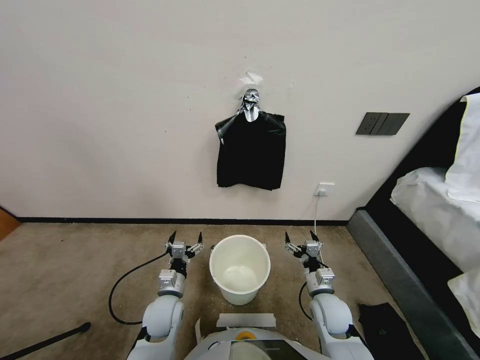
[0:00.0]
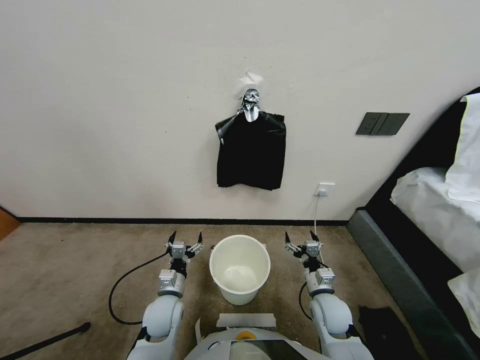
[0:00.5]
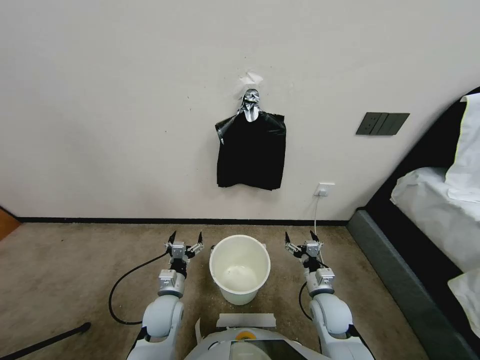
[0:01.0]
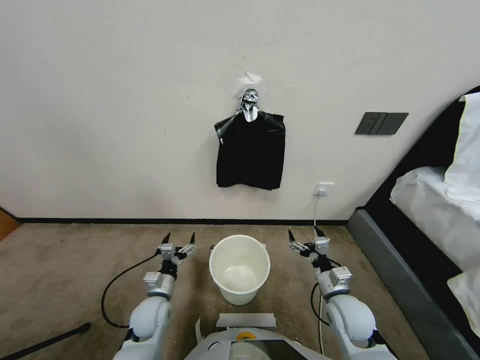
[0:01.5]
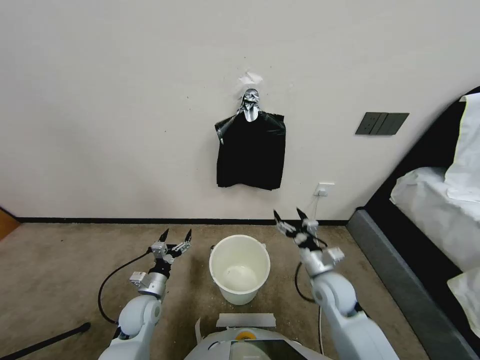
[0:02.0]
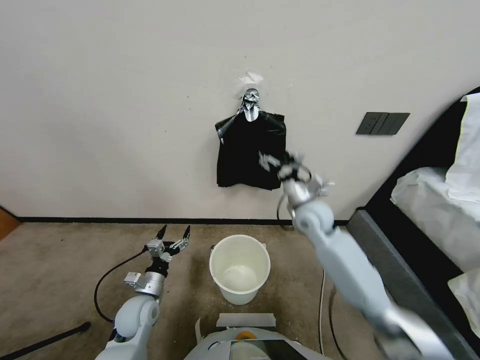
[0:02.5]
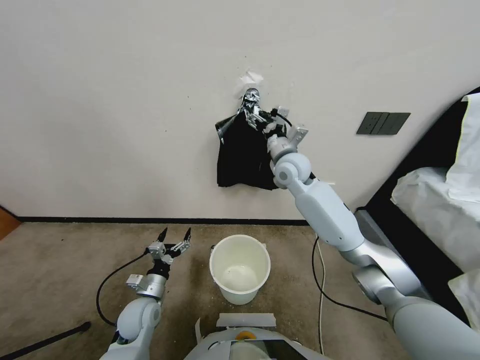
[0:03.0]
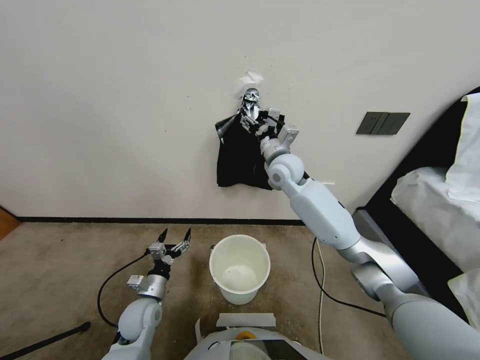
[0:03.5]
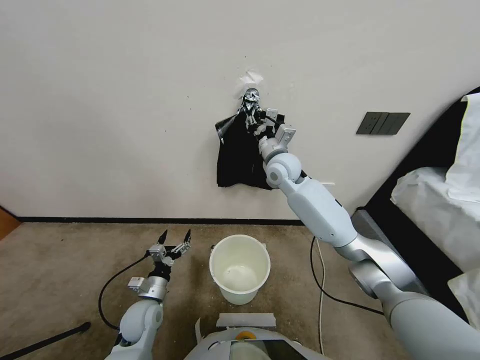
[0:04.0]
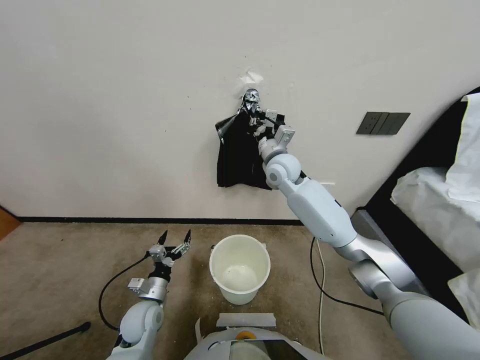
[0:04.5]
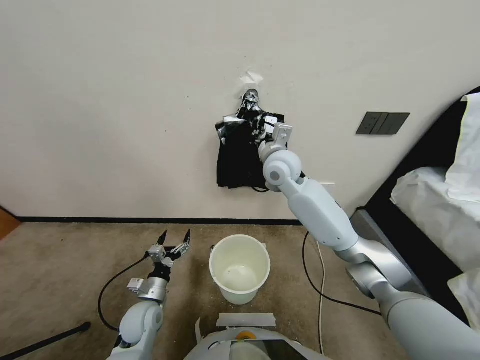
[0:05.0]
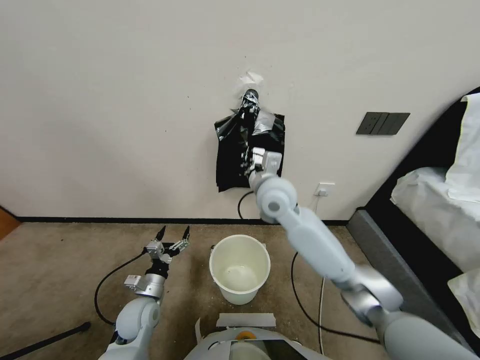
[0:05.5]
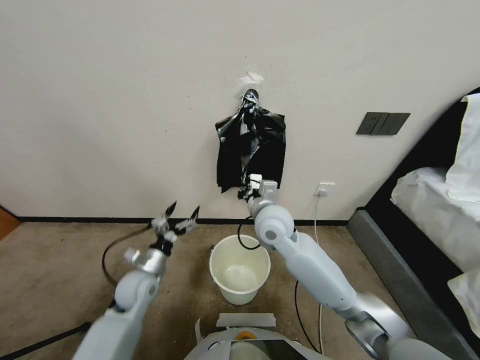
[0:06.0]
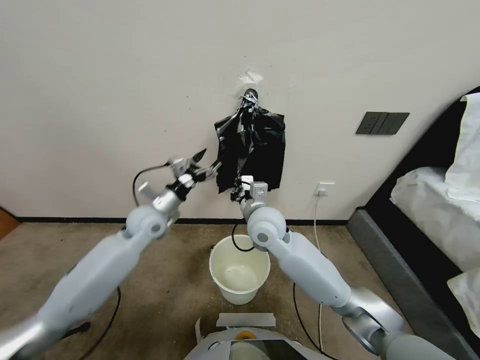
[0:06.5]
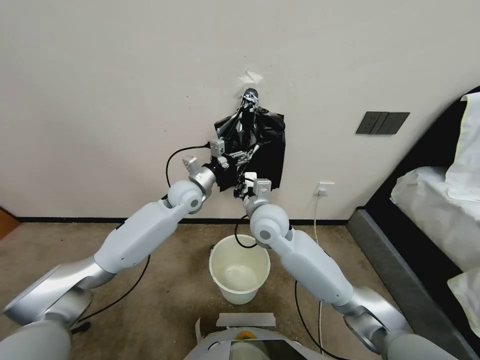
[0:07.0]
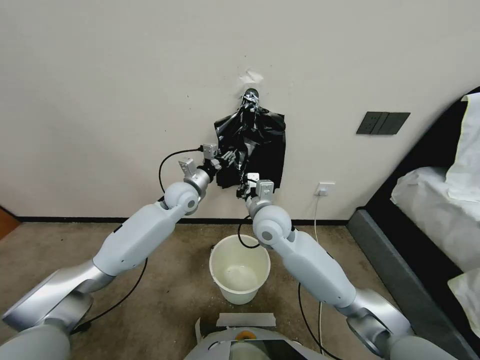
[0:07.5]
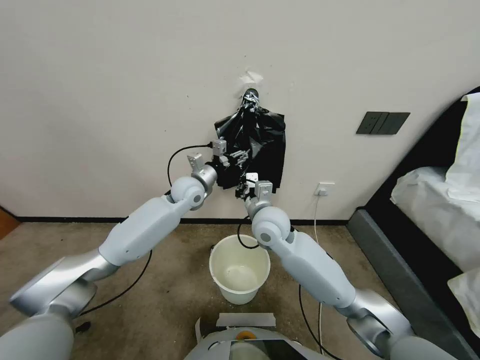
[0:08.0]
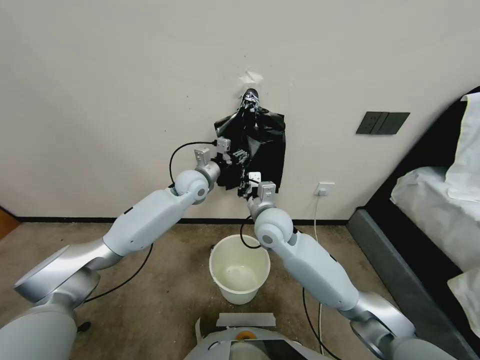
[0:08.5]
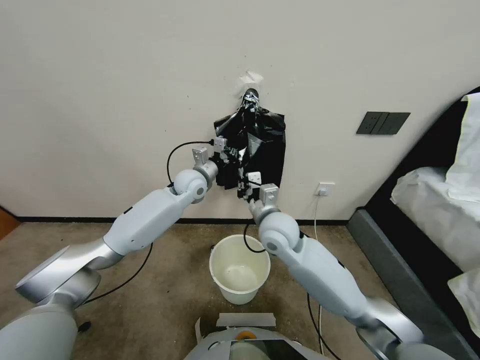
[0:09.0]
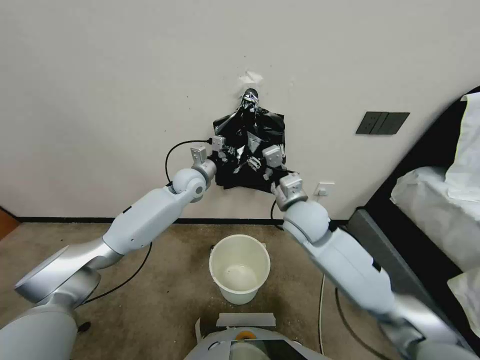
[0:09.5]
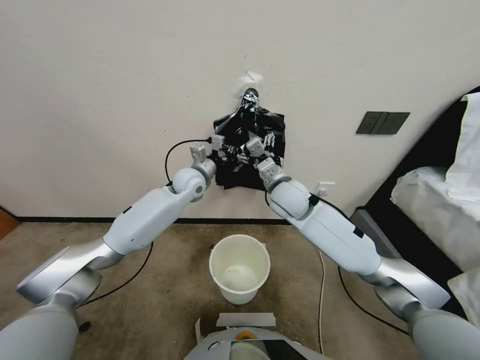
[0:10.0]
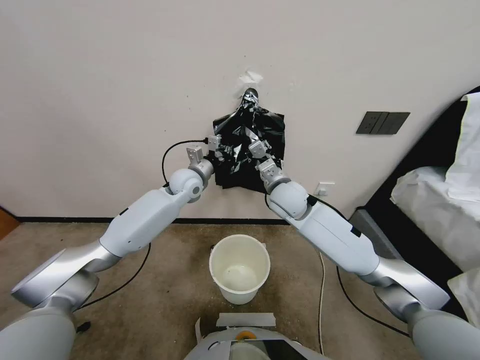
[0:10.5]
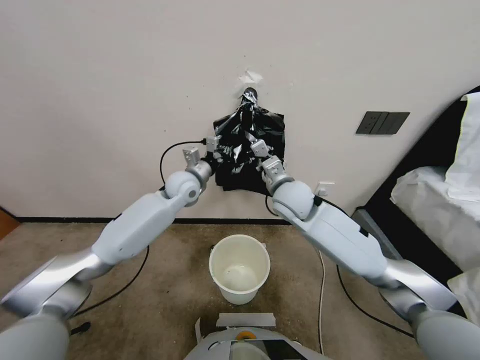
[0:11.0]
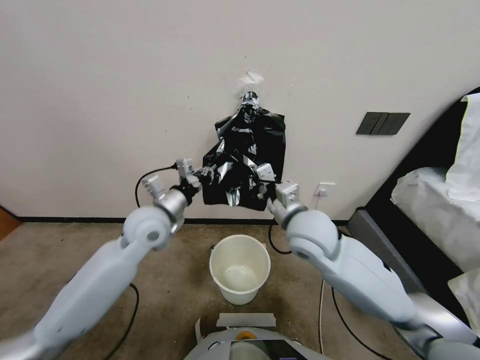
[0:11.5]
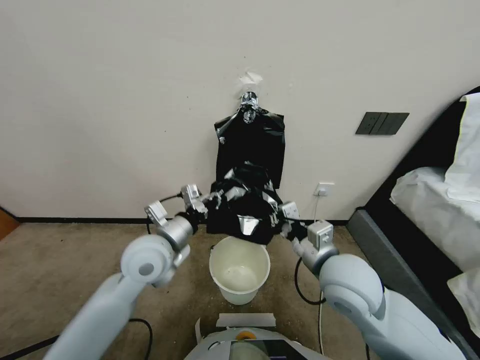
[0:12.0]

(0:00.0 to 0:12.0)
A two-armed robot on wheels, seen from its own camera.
Task of the whole recording: Place a trash bag onto the trash bin.
0:02.0 - 0:04.0: The right gripper is displaced forward, upward and to the left by some 35 cm, and closes up.
0:04.0 - 0:06.0: The right gripper heads backward and downward, covering approximately 15 cm. Meanwhile the left gripper shifts about 15 cm upward and forward.
0:06.0 - 0:08.0: The left gripper moves forward, to the right and upward, about 25 cm, and closes, then reopens.
0:08.0 - 0:10.0: The left gripper closes, while the right gripper moves forward, about 5 cm, and opens up.
0:10.0 - 0:12.0: The two grippers go approximately 20 cm backward. The right gripper closes up.

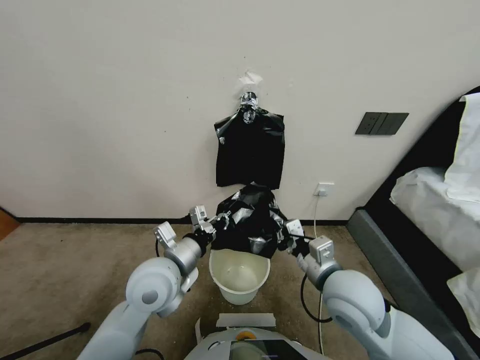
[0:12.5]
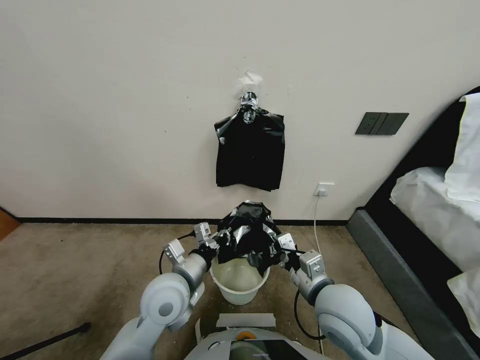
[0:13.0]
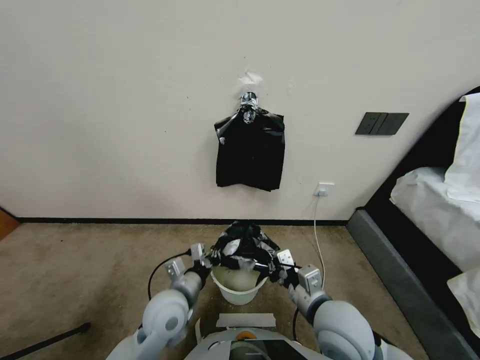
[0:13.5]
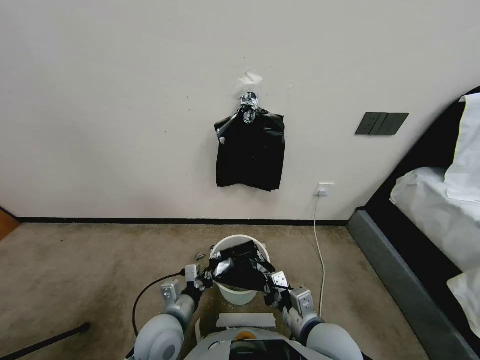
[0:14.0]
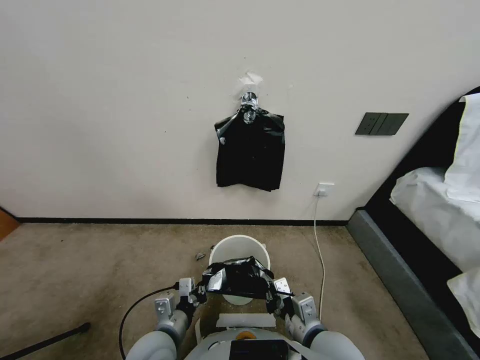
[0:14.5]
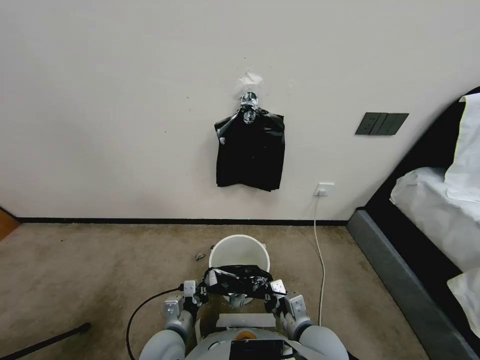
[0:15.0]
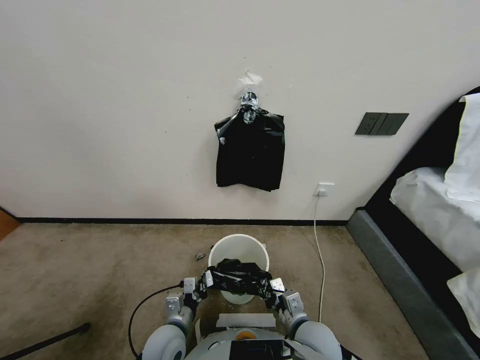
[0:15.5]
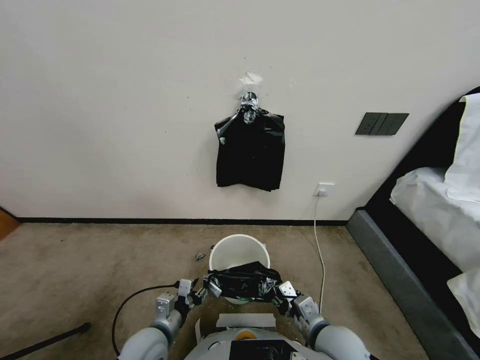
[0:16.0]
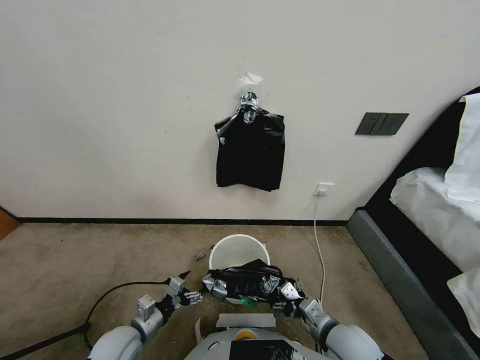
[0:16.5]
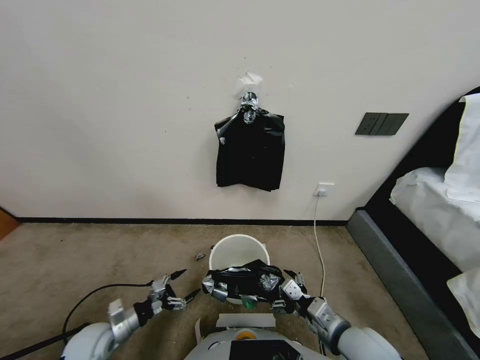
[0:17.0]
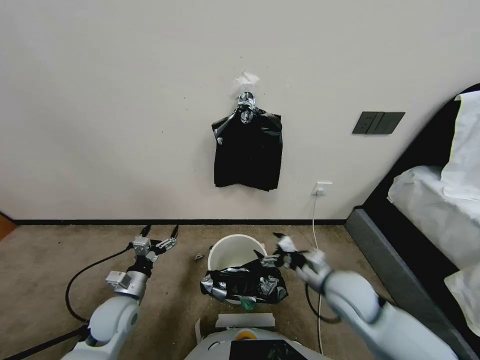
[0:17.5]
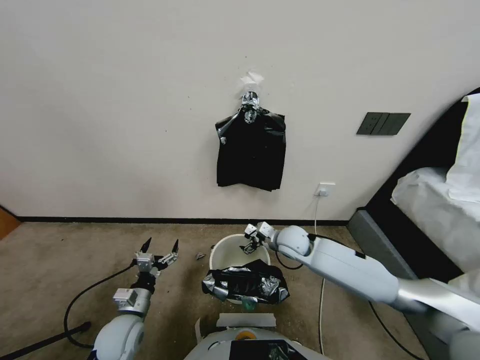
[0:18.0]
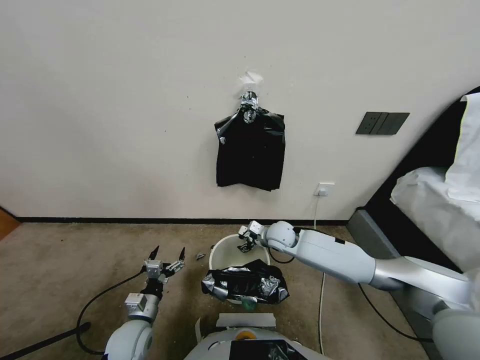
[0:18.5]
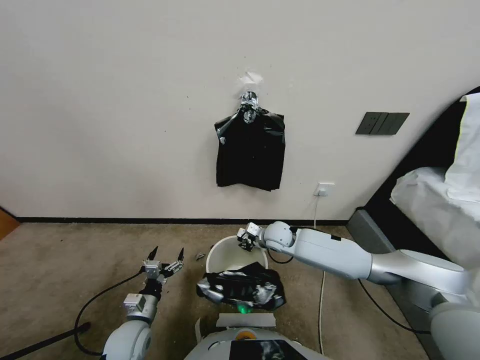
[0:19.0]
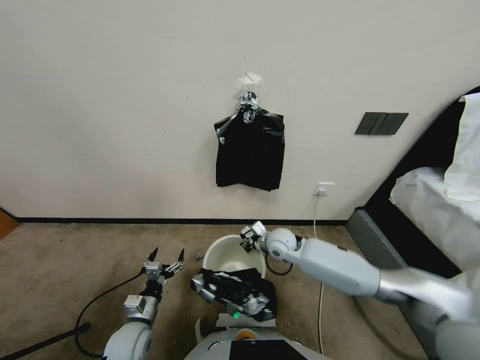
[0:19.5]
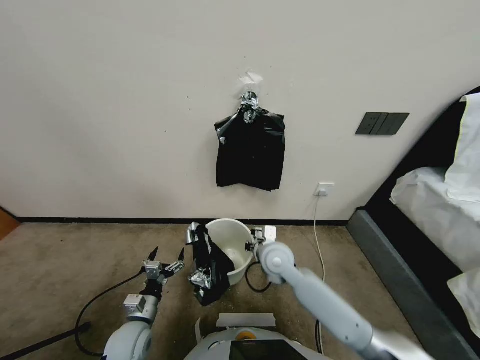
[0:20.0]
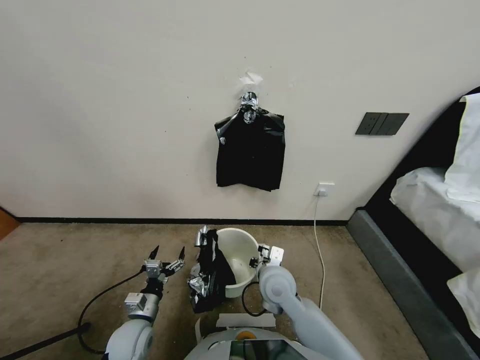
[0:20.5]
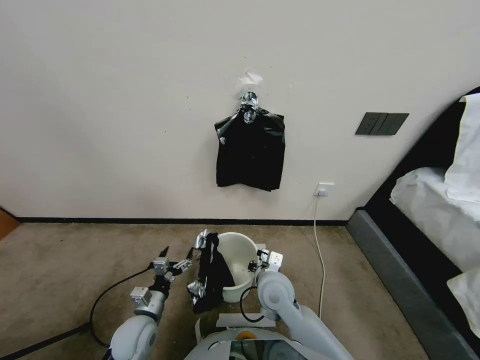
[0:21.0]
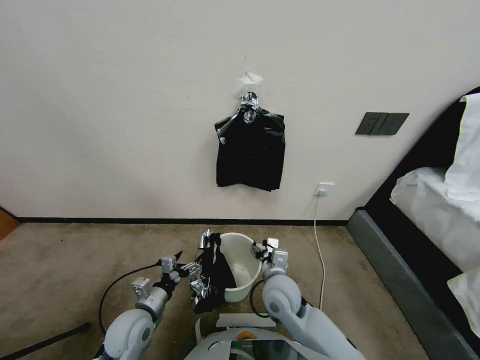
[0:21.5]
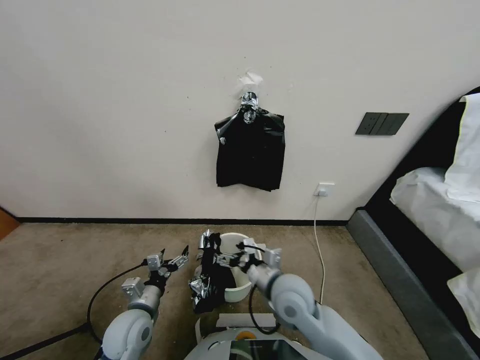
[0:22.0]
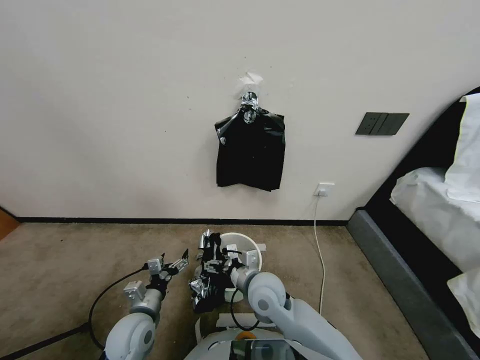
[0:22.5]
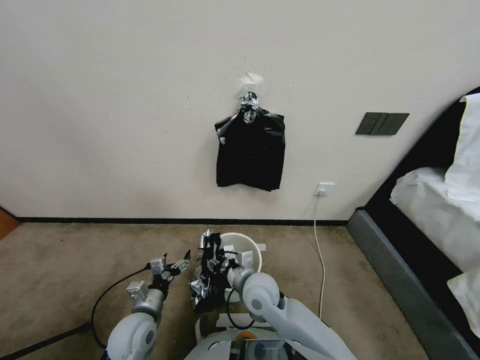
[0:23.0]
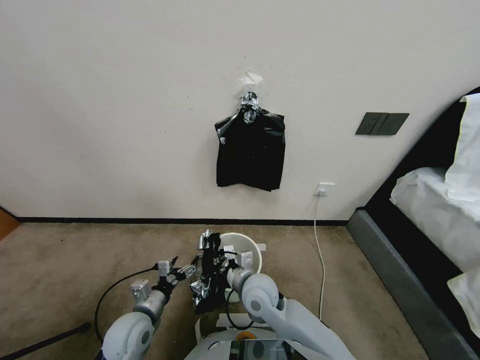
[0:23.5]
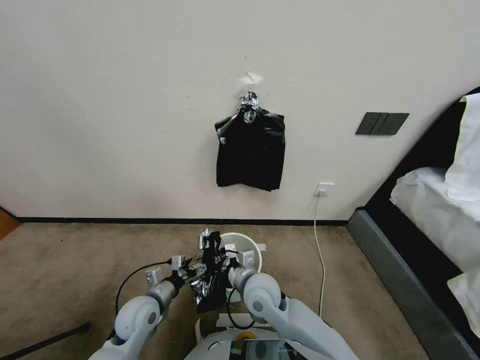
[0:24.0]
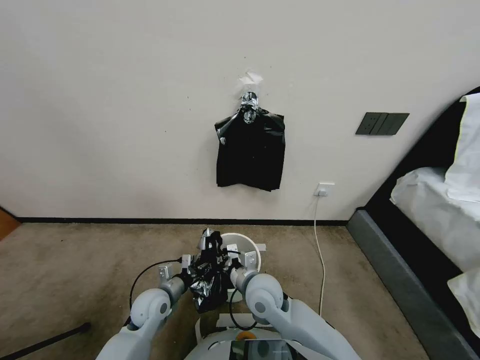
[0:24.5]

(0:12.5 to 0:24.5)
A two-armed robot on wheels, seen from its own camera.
Task of the whole recording: Place a trash bag onto the trash bin.
0:12.5 - 0:14.5: The right gripper heads backward and downward, covering roughly 10 cm; the left gripper moves downward and backward, about 15 cm.
0:14.5 - 0:16.5: The left gripper moves to the left and downward, about 15 cm, and opens up, while the right gripper goes some 5 cm to the right, and opens up.
0:16.5 - 0:18.5: The right gripper travels forward by some 30 cm, and closes; the left gripper reaches some 10 cm to the left, then returns.
0:18.5 - 0:20.5: The right gripper is displaced backward by approximately 15 cm, and closes up.
0:20.5 - 0:22.5: The left gripper changes place by about 5 cm. The right gripper opens its fingers.
0:22.5 - 0:24.5: The left gripper is displaced forward by roughly 5 cm, and closes. The right gripper closes its fingers.

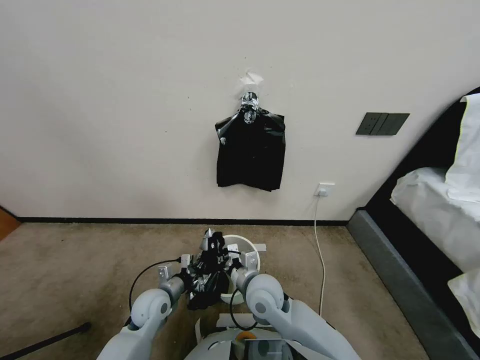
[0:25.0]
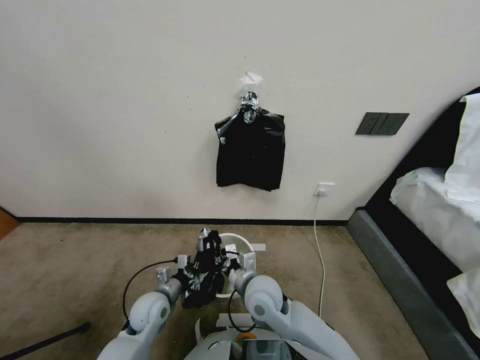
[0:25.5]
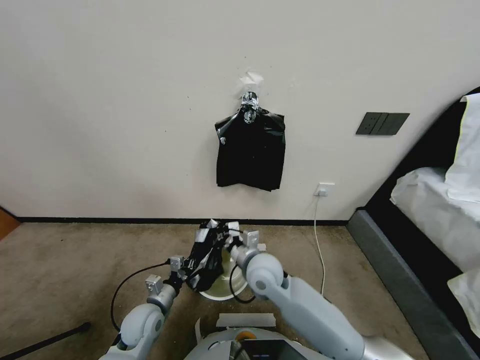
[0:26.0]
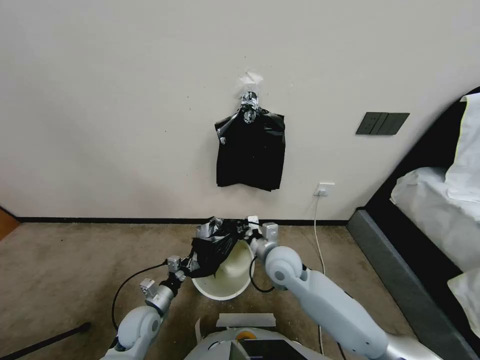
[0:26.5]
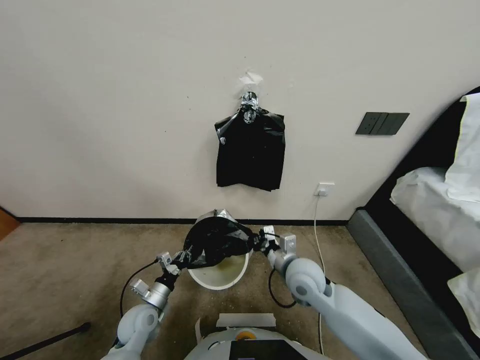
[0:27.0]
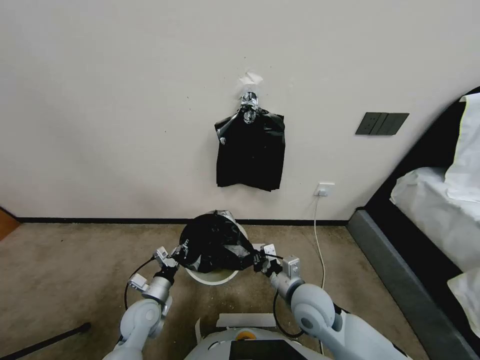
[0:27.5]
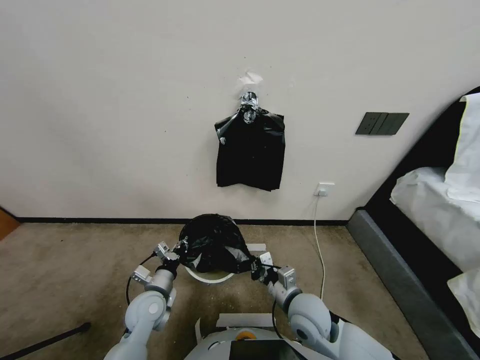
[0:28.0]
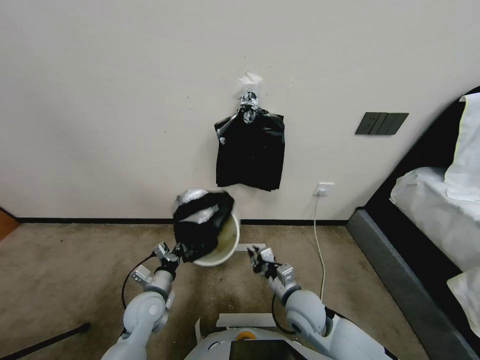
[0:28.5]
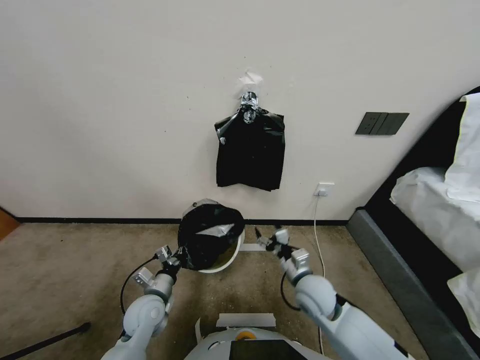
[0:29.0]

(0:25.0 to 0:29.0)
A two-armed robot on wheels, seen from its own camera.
Task of the whole recording: Place a trash bag onto the trash bin.
0:25.0 - 0:27.0: The right gripper travels to the right by roughly 10 cm. Meanwhile the left gripper moves about 5 cm.
0:27.0 - 0:29.0: The right gripper opens.
